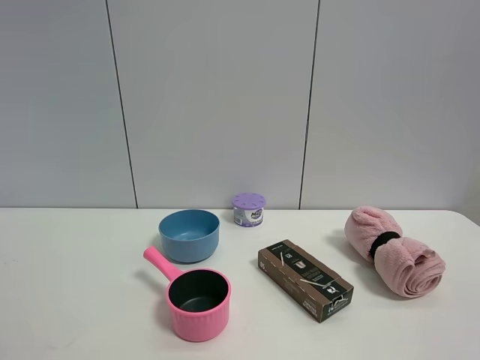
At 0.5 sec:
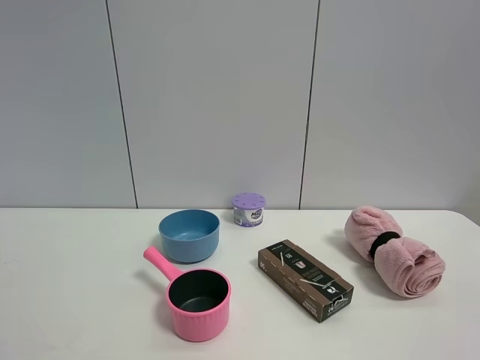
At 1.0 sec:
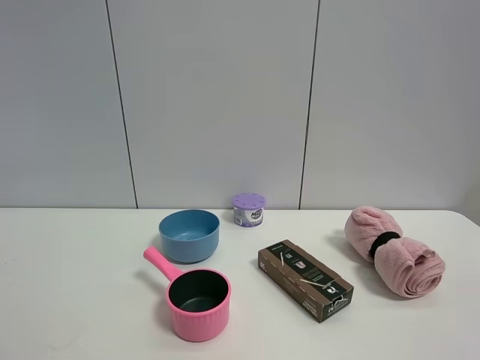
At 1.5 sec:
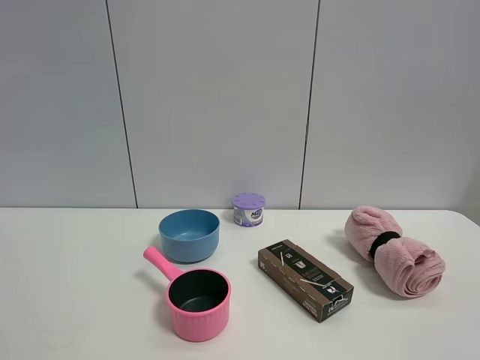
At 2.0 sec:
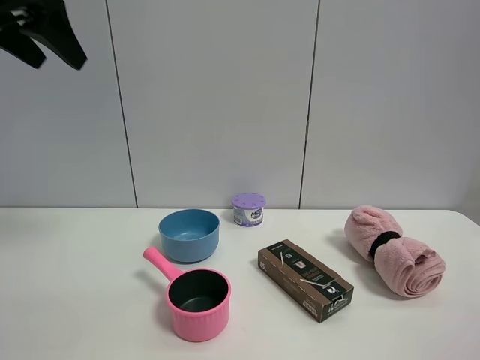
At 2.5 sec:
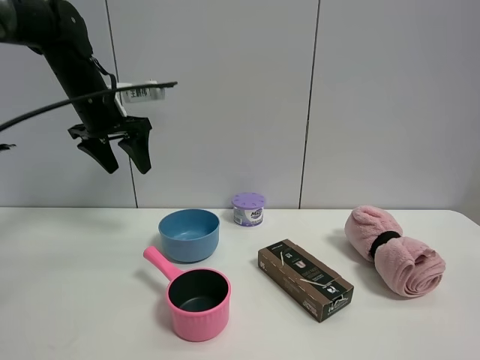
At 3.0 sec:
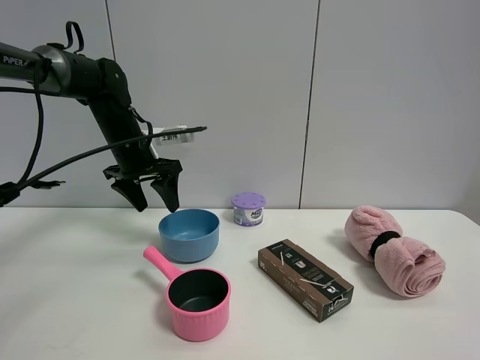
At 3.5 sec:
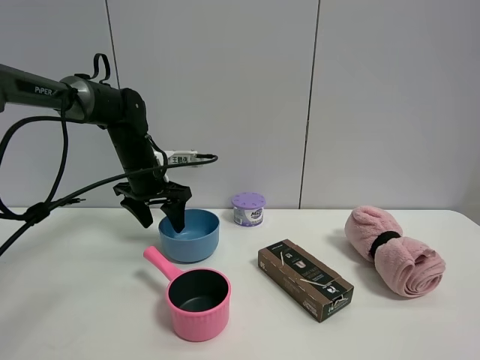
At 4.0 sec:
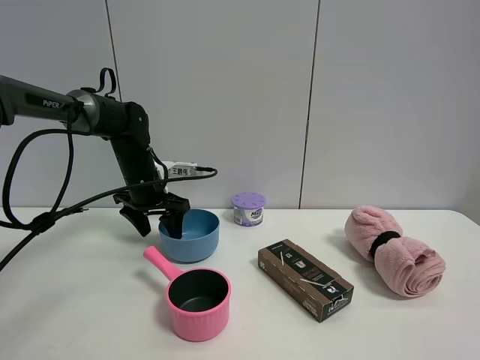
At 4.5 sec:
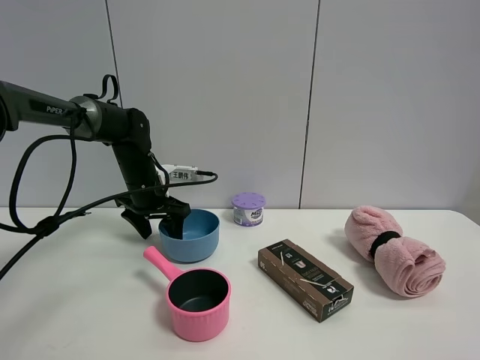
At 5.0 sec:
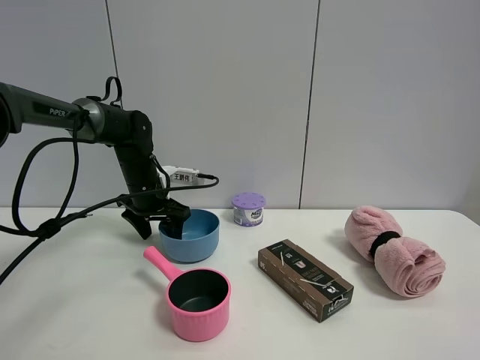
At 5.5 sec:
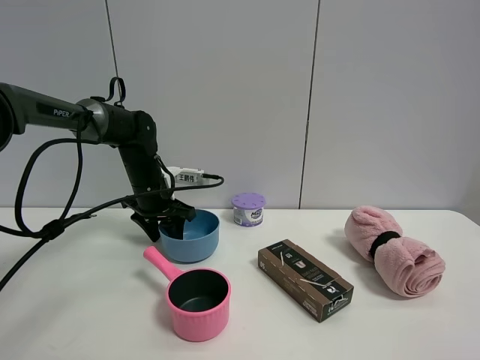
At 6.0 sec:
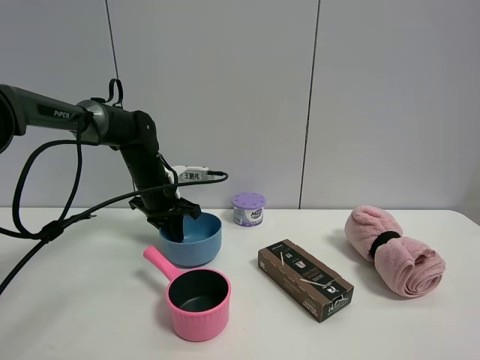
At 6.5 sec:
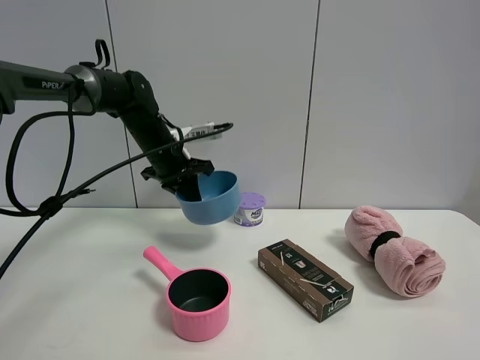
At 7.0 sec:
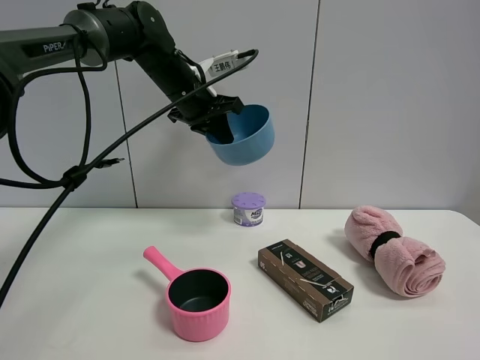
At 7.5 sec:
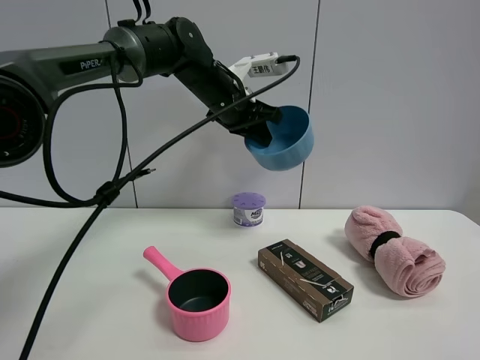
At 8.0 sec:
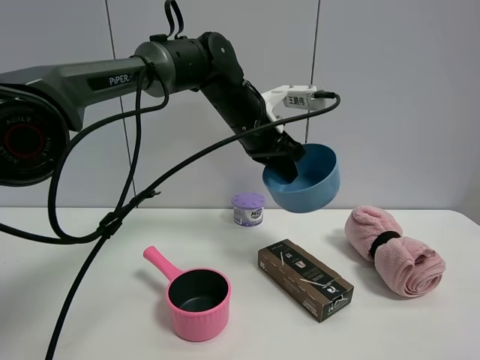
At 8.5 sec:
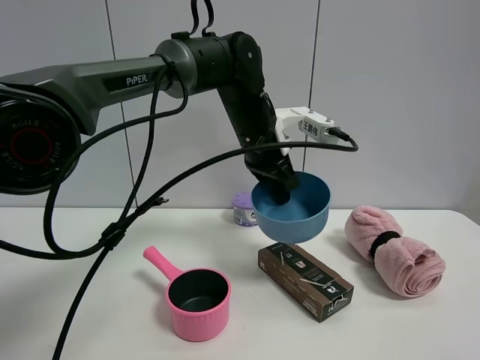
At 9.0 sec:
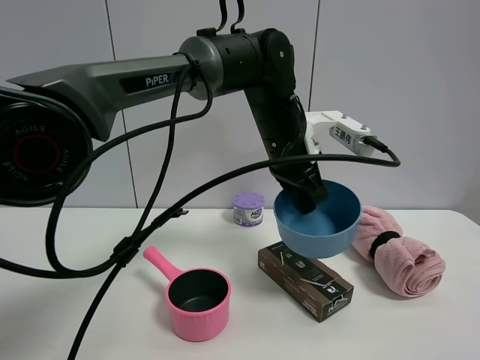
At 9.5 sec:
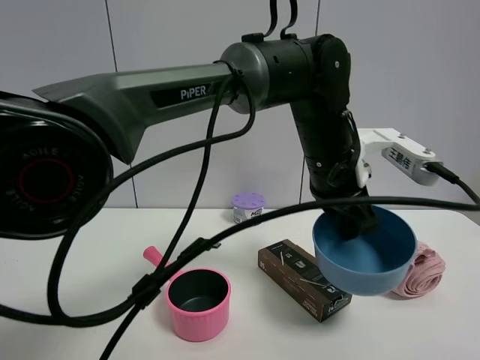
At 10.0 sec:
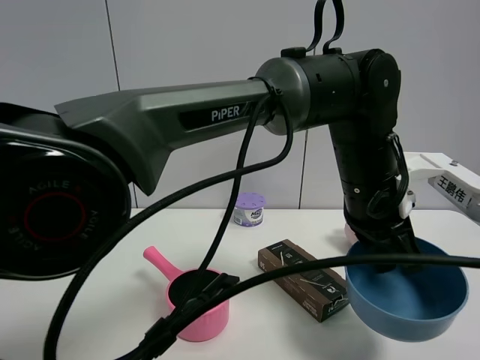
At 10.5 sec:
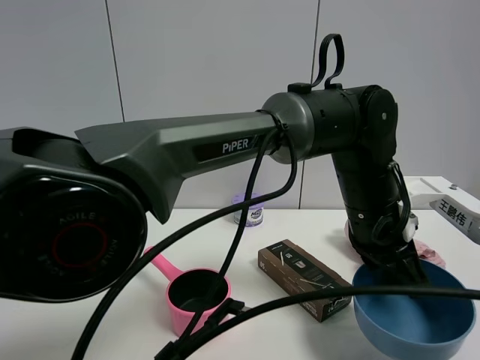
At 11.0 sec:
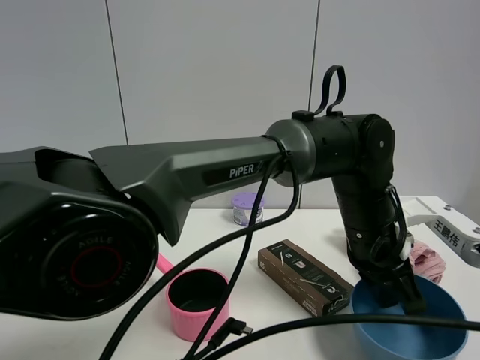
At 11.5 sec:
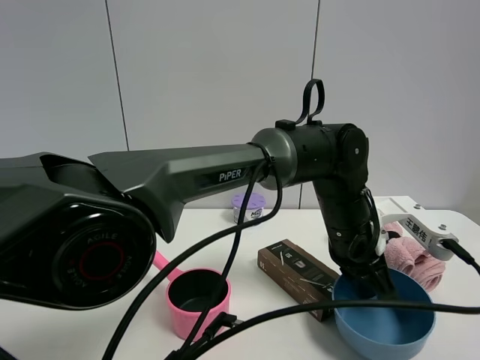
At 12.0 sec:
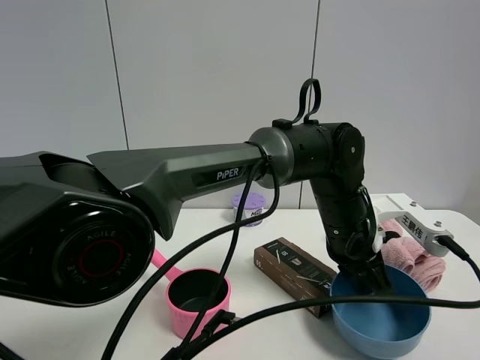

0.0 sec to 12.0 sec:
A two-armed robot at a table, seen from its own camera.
Task of the whole recording: the gripper move the object.
Step, 0.0 sec to 5.5 sec: Grasp the blue bowl with the left gripper.
0.0 sec to 2.0 sec: The left gripper travels forward by roughly 35 cm.
2.0 sec to 4.0 sec: The left gripper is displaced downward and forward by some 30 cm.
4.0 sec to 6.0 sec: The left gripper closes.
6.0 sec to 8.0 sec: The left gripper shifts roughly 20 cm to the right and upward.
8.0 sec to 10.0 sec: The left gripper heads backward and to the right, covering about 20 cm.
10.0 sec to 12.0 sec: The left gripper is displaced downward by roughly 5 cm.

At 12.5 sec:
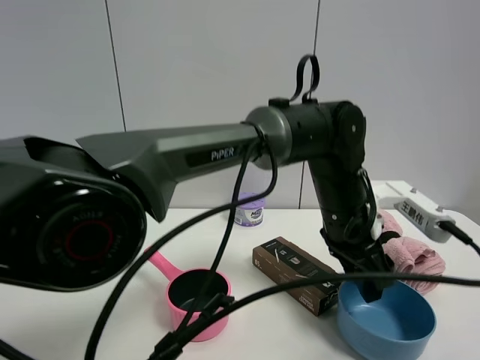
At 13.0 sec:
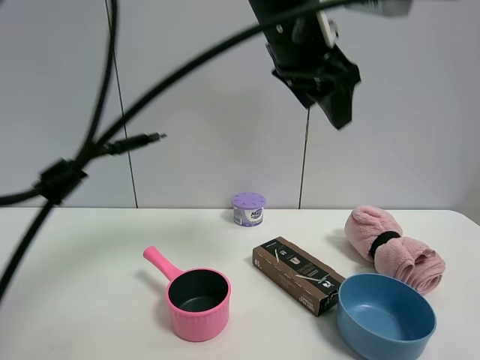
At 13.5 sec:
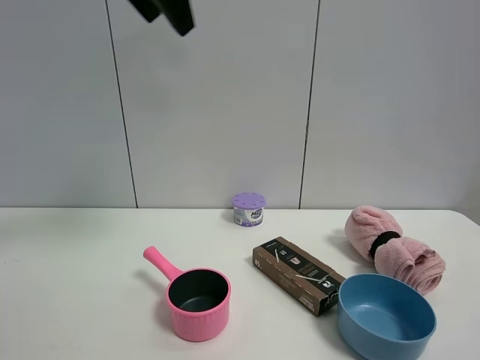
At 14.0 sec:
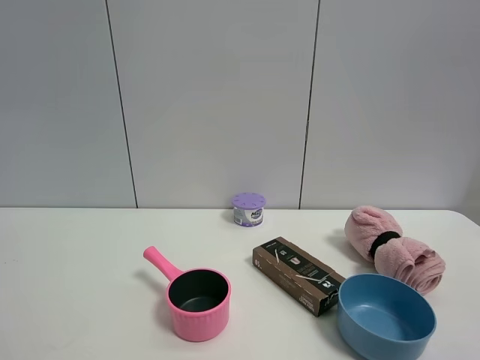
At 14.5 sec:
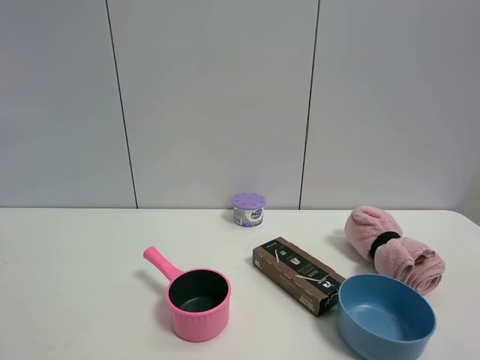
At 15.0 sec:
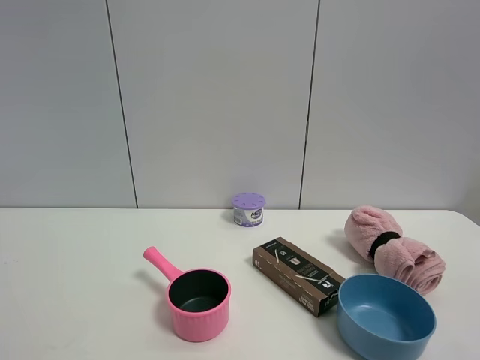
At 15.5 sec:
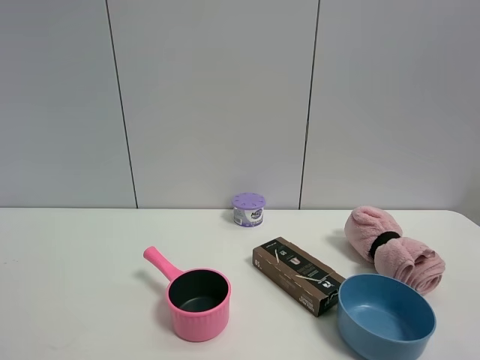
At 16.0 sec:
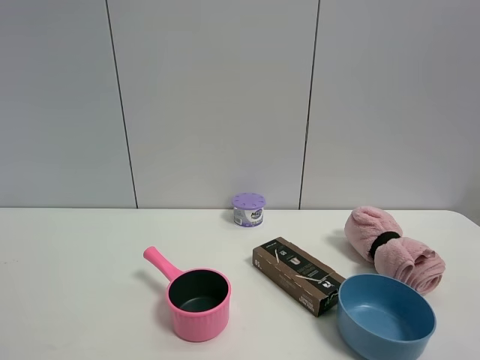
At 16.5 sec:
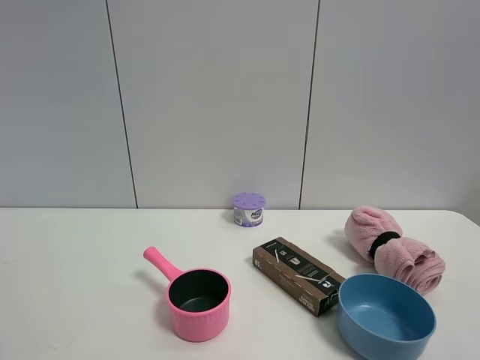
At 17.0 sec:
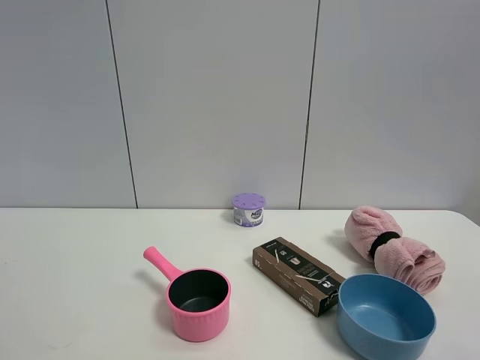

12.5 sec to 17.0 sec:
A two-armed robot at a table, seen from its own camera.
Task of the whole recording: the gripper move the object.
12.5 sec to 14.5 sec: The left gripper goes roughly 60 cm to the left, backward and upward.
